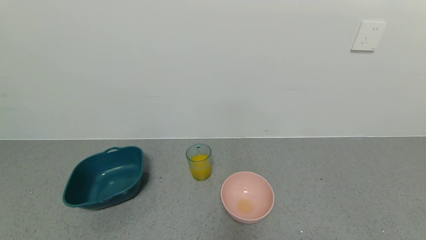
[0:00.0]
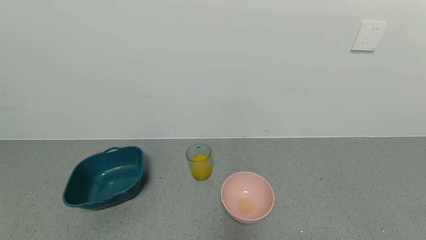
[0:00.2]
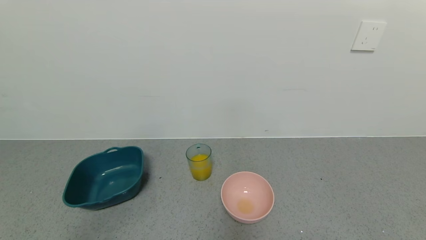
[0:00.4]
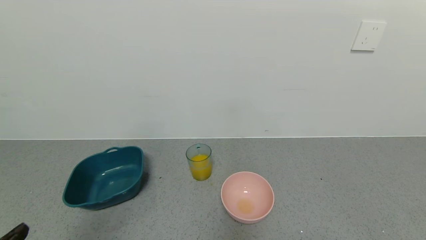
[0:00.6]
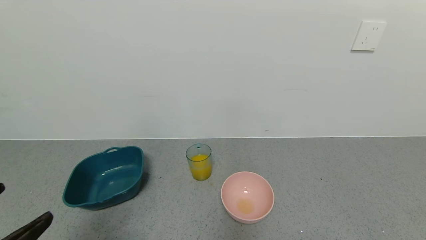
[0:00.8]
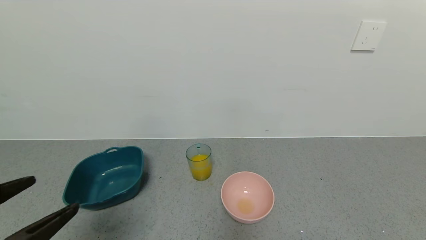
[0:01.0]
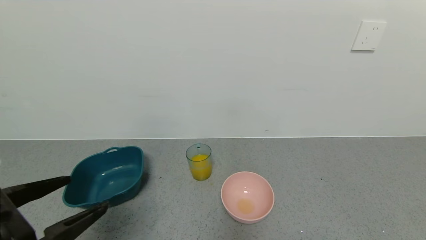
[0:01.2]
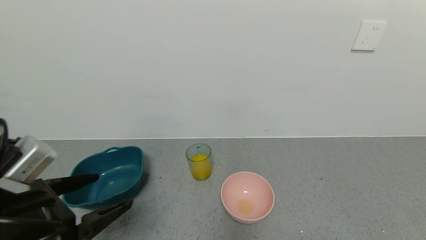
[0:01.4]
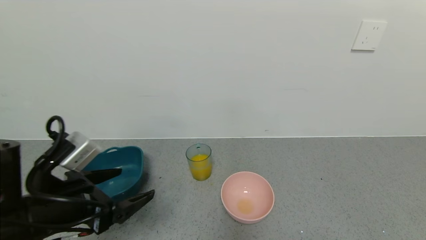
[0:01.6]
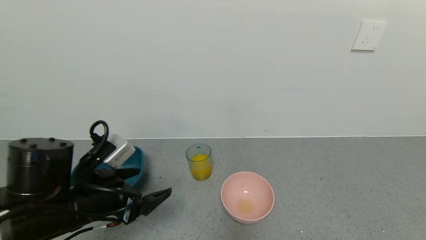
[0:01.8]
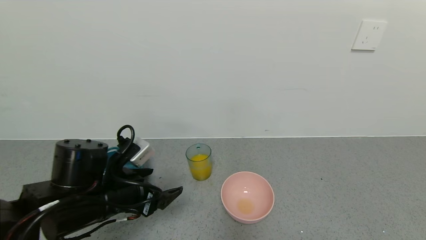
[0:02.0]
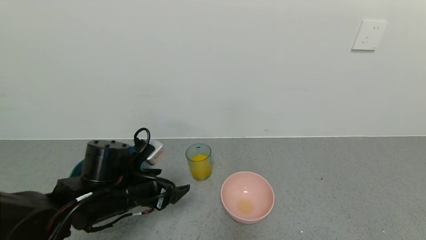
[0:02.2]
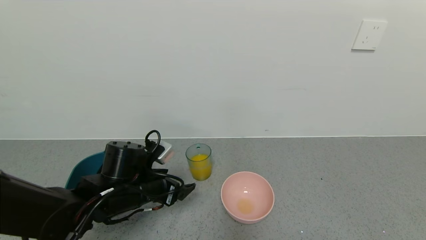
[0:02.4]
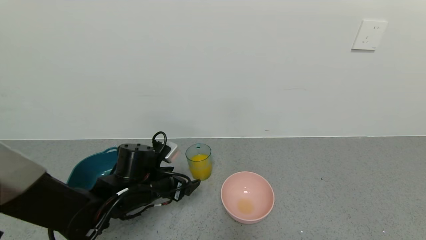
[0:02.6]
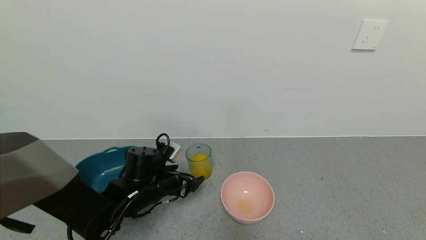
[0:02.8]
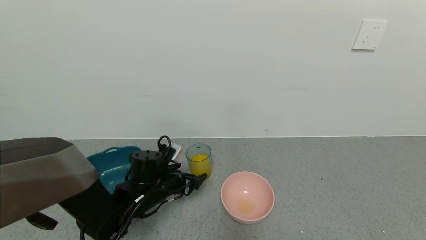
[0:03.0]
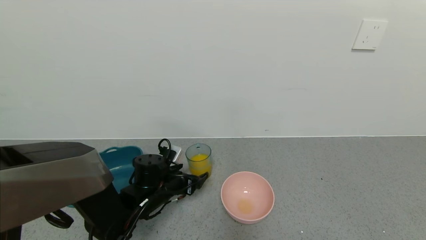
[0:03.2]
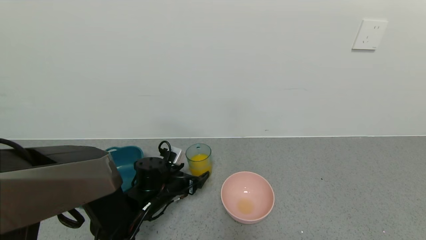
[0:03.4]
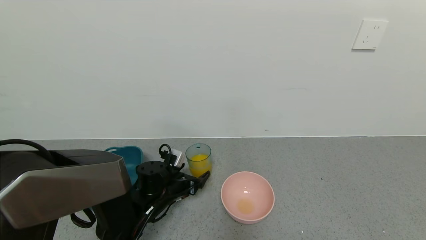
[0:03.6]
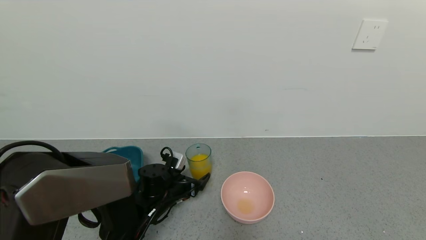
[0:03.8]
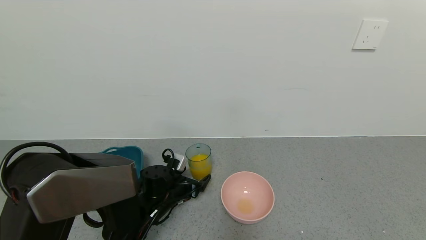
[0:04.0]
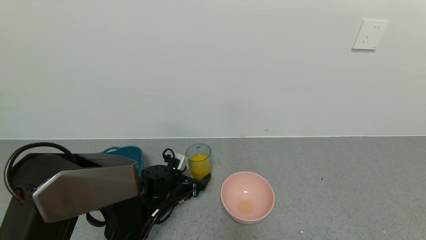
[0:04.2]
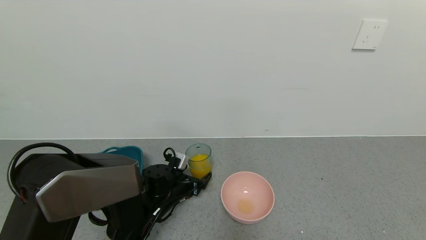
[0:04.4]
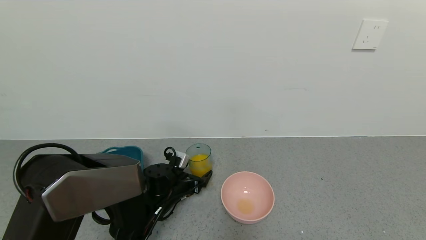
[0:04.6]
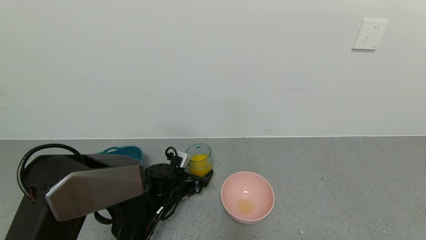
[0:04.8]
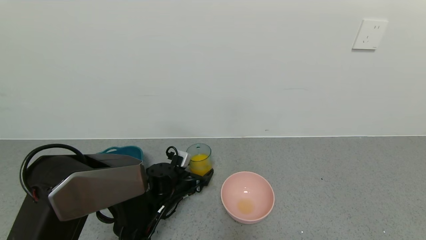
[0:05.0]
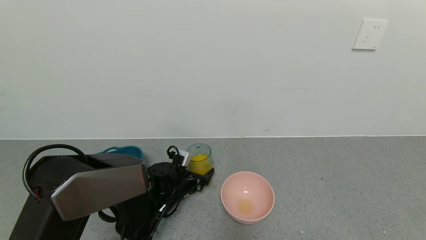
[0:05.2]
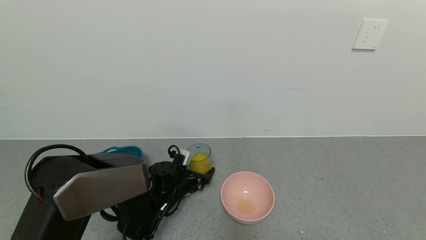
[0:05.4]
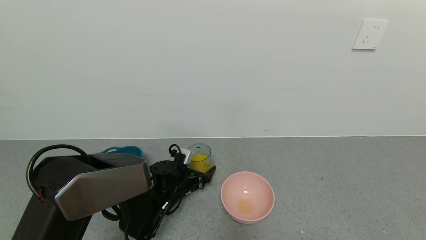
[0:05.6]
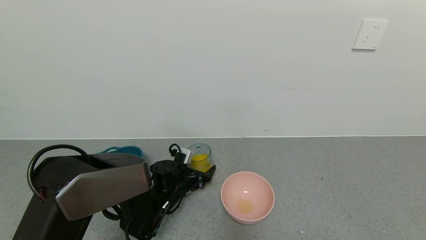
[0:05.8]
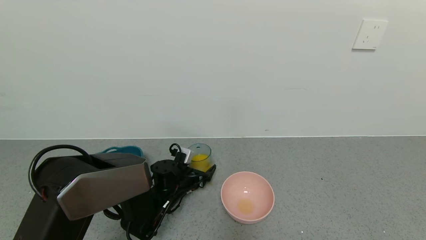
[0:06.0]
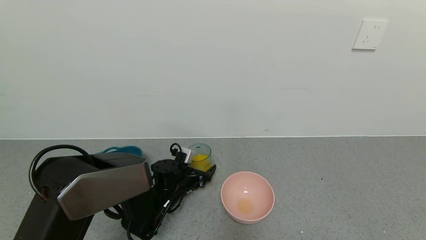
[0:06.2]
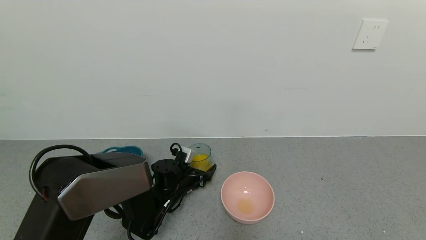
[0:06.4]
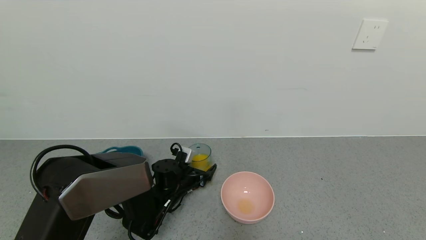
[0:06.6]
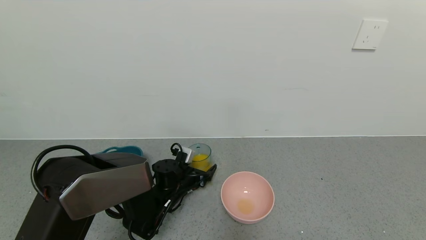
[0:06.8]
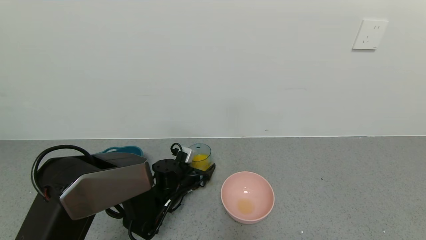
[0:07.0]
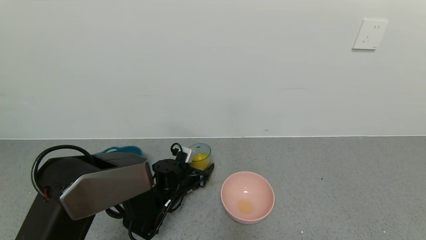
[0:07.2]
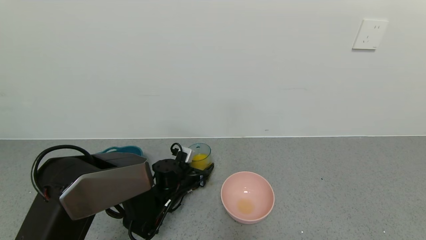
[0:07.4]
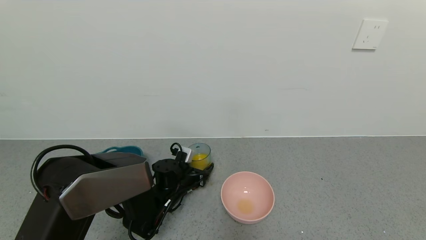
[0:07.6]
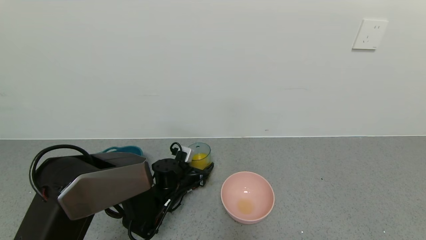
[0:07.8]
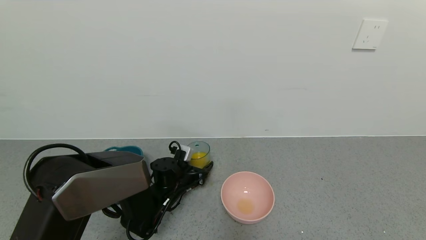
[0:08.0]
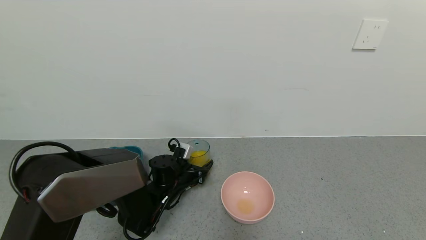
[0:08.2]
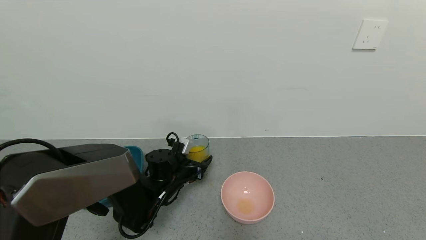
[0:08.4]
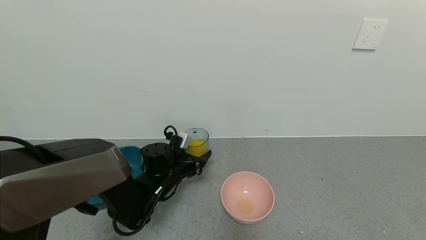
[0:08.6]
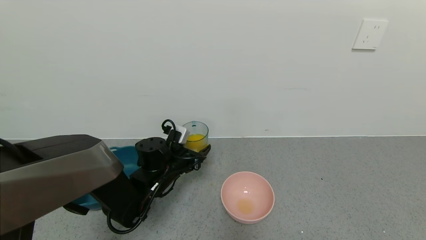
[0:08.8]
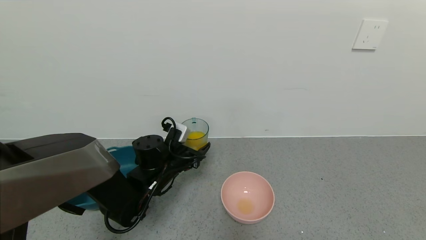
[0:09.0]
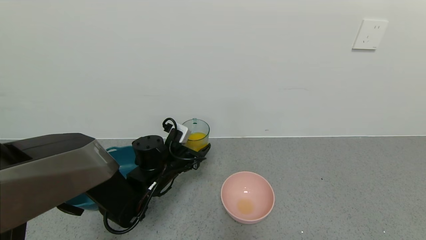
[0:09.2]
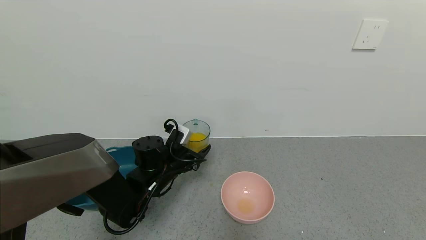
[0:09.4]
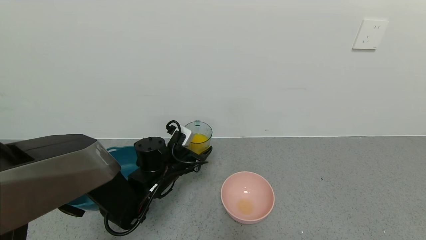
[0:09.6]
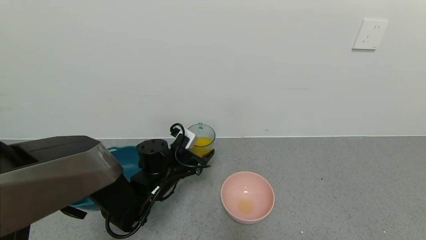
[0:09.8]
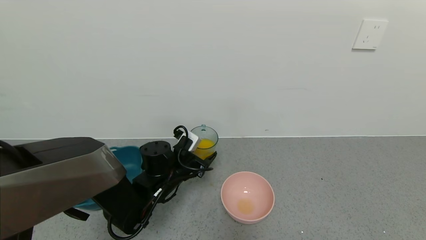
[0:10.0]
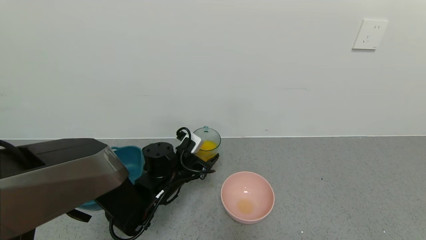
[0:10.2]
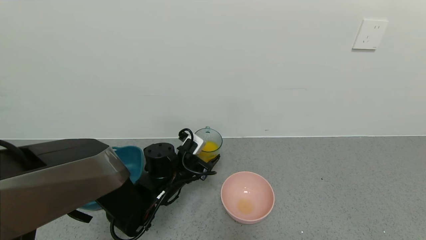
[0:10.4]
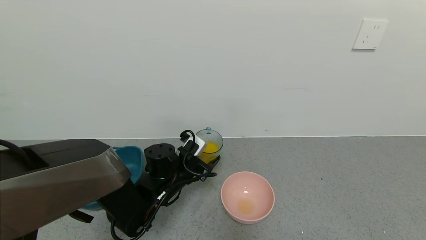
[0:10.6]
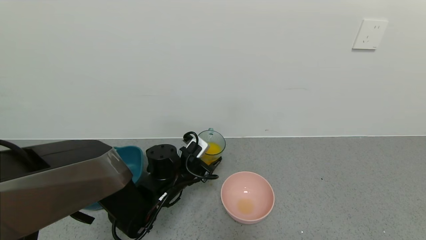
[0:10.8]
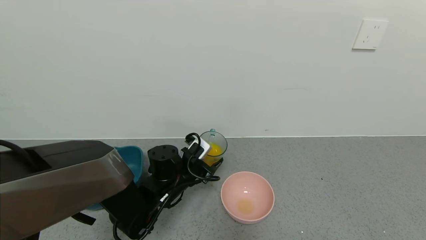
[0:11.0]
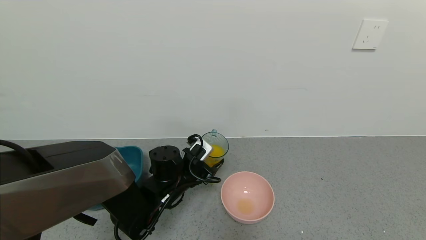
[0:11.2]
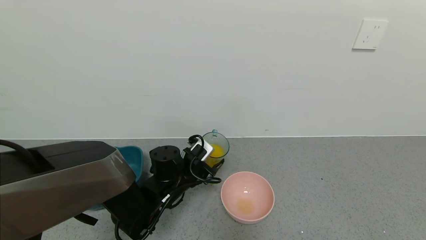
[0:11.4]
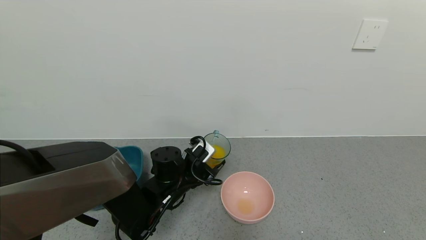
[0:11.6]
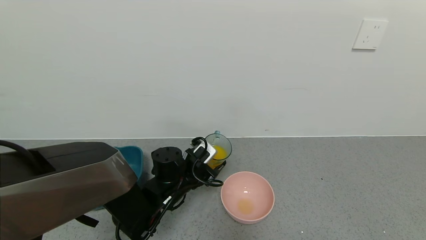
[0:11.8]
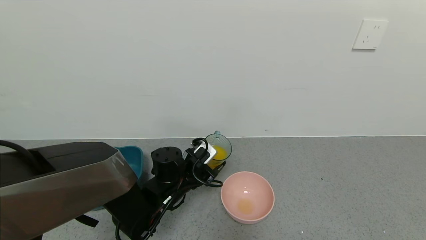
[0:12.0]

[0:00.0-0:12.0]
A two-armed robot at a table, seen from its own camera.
Task of the whole recording: use a gripper to pick up the cup and pour the liquid into a bowl or tray.
Step, 0:00.0 to 0:07.6: Pick up blue cup filled with orange juice with left gripper.
0:00.0 to 0:01.6: The left gripper shifts approximately 20 cm forward.
0:01.6 to 0:03.0: The left gripper moves forward, downward and to the right, about 20 cm.
0:03.0 to 0:04.4: The left gripper travels downward by approximately 5 cm.
0:04.4 to 0:06.0: The grippers stay close to where they were, moving slightly.
0:06.0 to 0:07.6: The left gripper closes up.
0:07.6 to 0:09.0: The left gripper goes approximately 10 cm upward.
0:09.0 to 0:10.4: The grippers make only small movements.
0:10.4 to 0:12.0: The grippers move only a little.

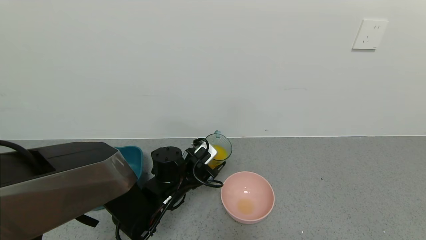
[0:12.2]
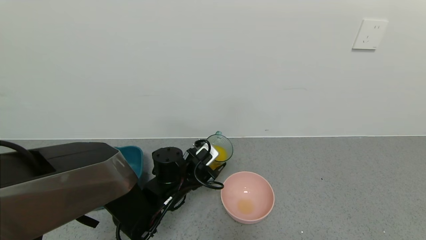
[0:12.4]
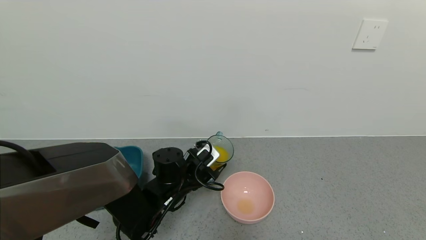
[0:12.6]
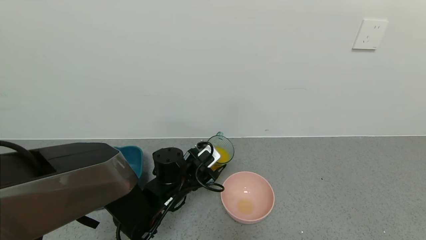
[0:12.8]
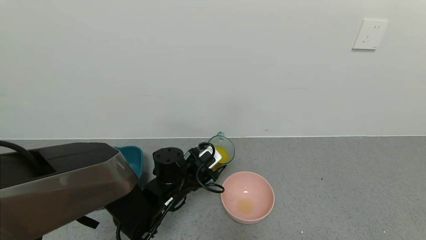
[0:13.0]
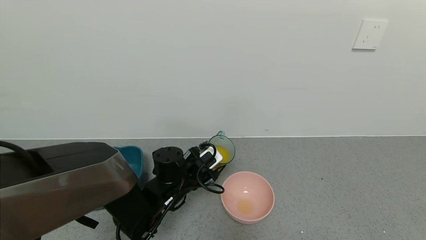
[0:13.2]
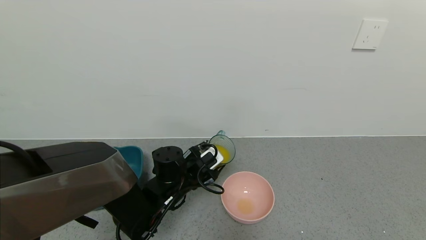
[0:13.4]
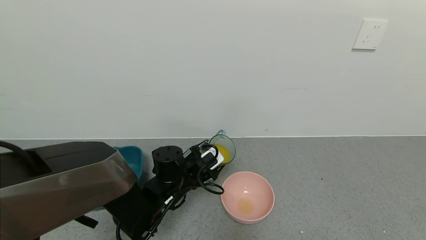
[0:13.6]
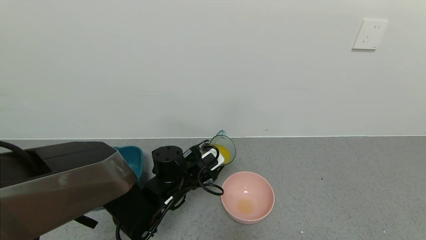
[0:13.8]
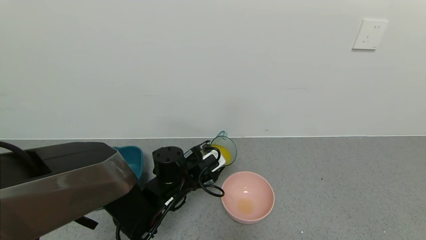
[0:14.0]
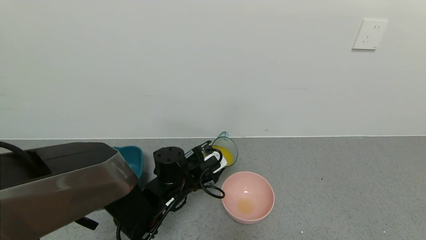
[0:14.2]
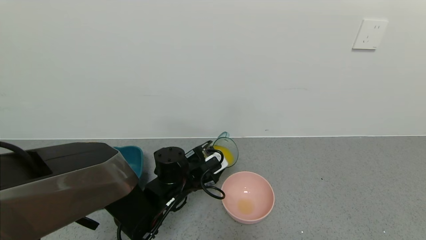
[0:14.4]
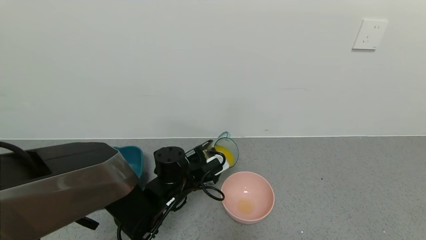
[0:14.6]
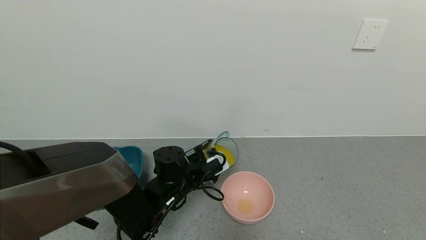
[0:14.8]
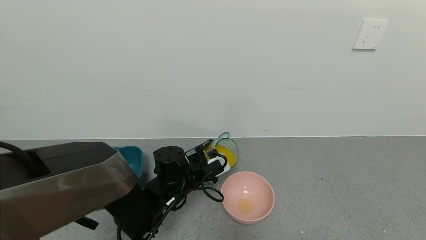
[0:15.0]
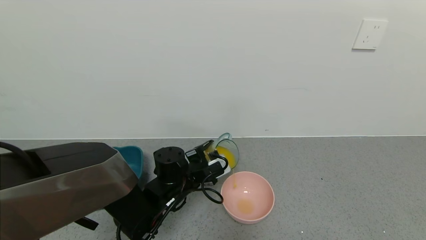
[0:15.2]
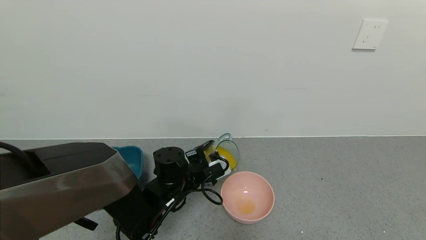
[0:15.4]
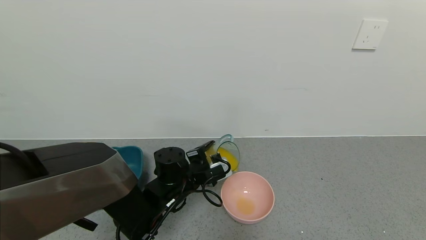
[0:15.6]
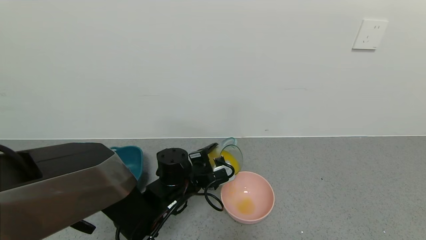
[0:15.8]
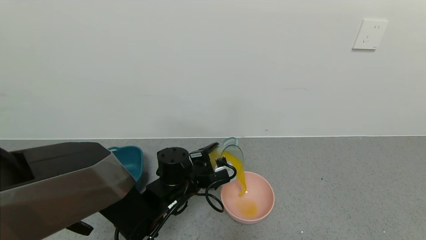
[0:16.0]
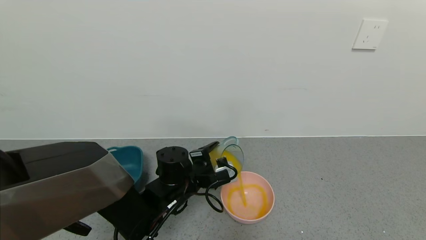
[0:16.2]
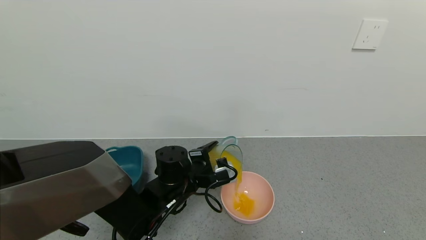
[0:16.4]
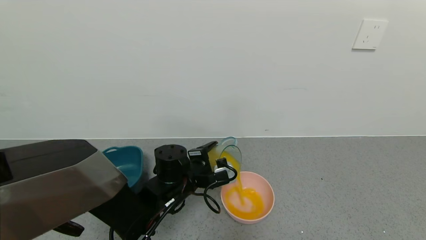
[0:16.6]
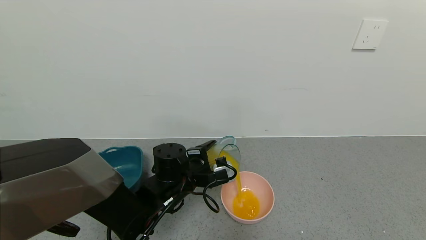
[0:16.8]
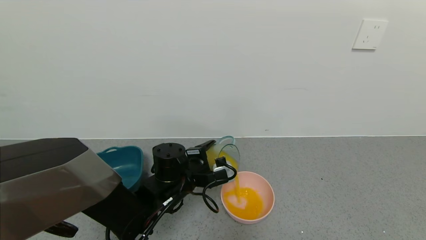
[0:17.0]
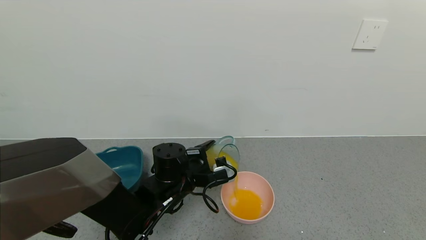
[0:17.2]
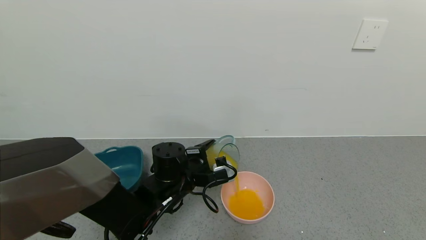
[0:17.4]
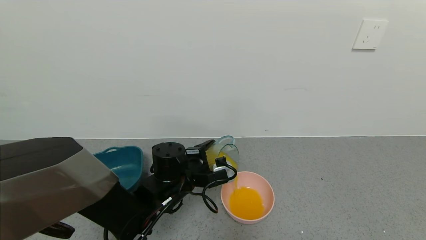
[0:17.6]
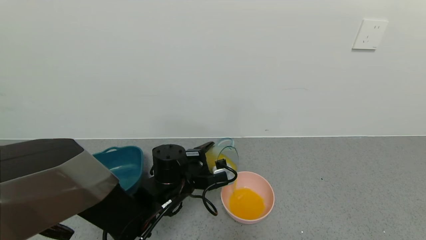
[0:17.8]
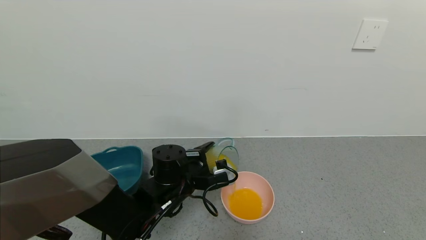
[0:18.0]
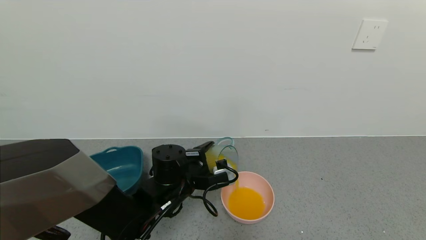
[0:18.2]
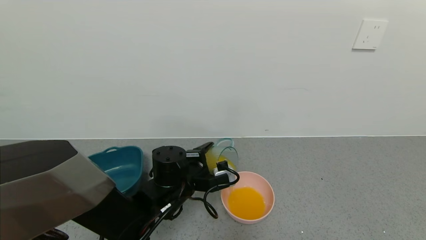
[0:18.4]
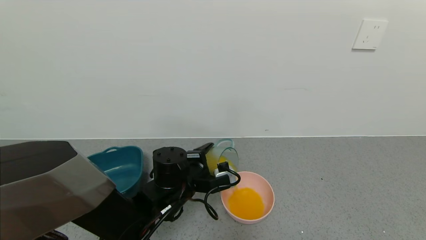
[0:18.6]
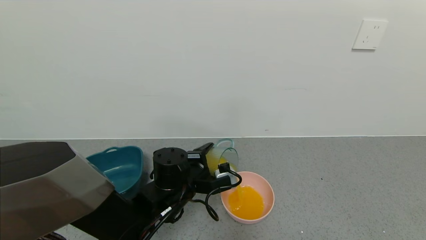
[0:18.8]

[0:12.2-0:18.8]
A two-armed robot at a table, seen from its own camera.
Task of the whole recording: use a gripper to pick up the cup and pour the liquid into a bowl or tray.
0:12.2 to 0:13.8: The grippers stay close to where they were, moving slightly.
0:13.8 to 0:15.4: There are only small adjustments of the grippers.
0:15.4 to 0:18.8: There are only small adjustments of the grippers.
